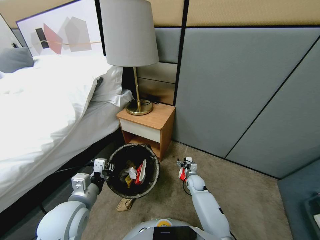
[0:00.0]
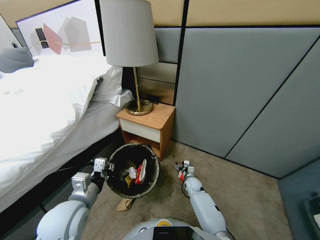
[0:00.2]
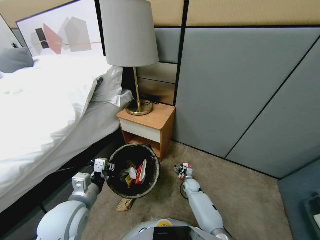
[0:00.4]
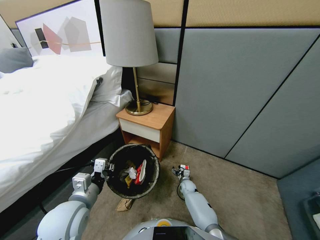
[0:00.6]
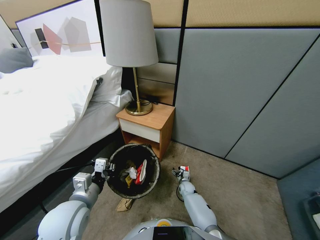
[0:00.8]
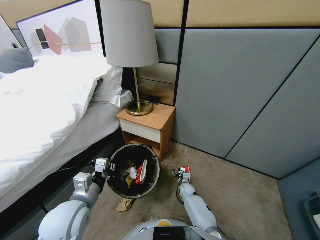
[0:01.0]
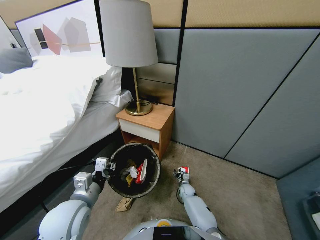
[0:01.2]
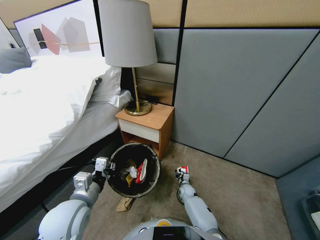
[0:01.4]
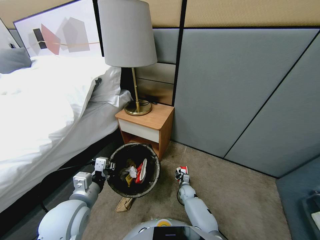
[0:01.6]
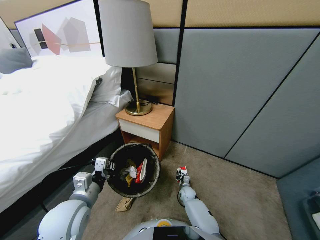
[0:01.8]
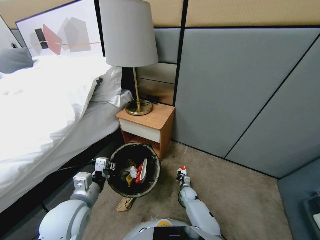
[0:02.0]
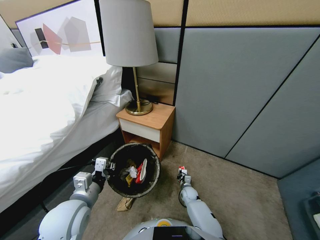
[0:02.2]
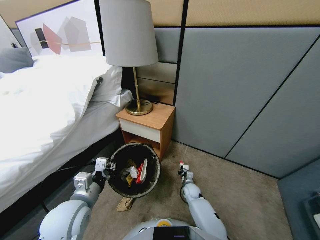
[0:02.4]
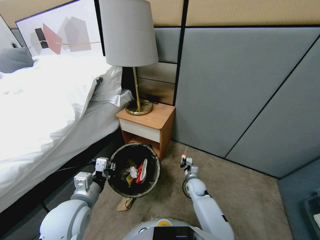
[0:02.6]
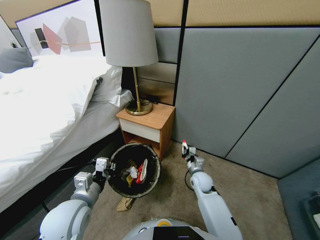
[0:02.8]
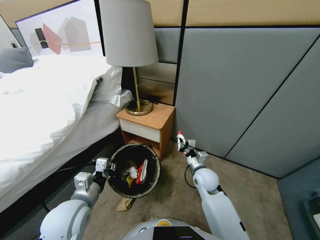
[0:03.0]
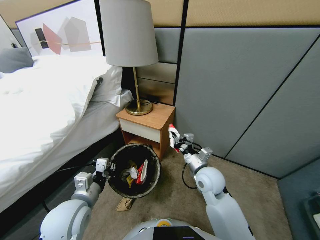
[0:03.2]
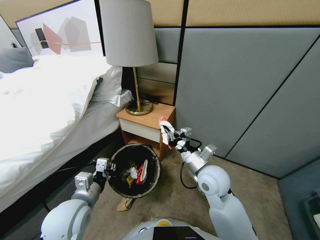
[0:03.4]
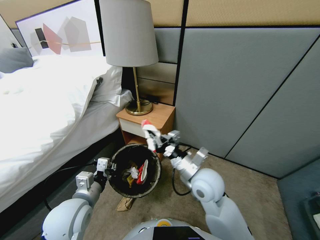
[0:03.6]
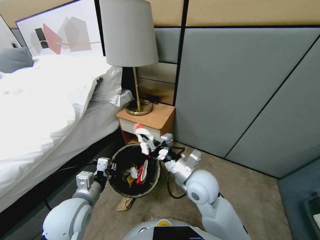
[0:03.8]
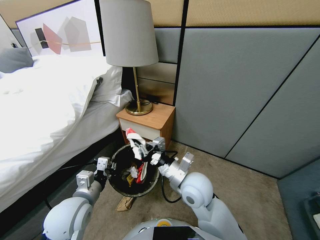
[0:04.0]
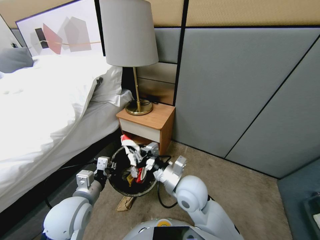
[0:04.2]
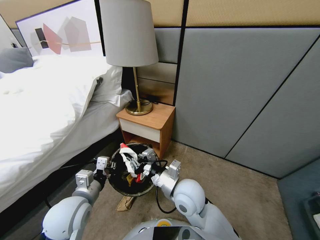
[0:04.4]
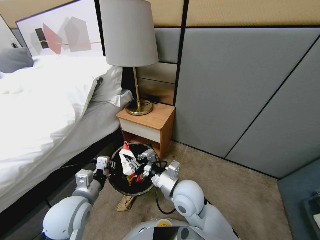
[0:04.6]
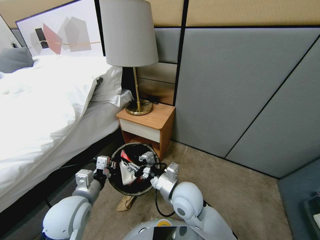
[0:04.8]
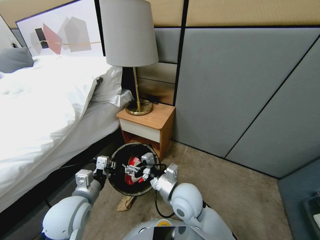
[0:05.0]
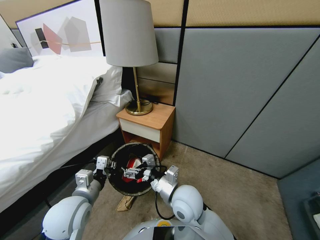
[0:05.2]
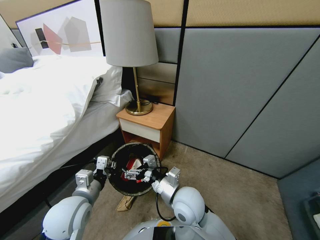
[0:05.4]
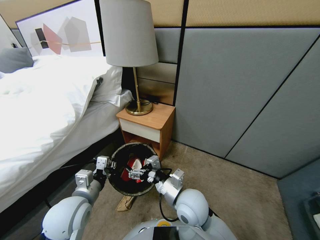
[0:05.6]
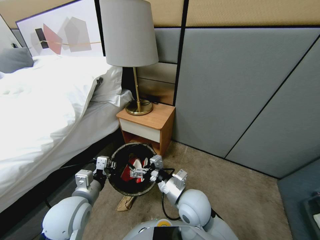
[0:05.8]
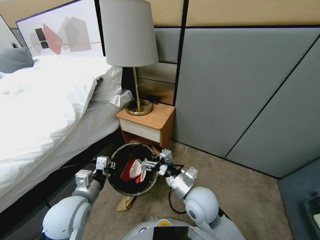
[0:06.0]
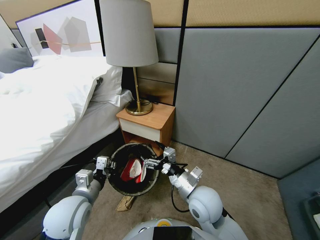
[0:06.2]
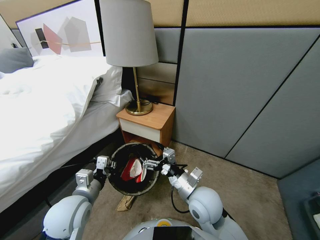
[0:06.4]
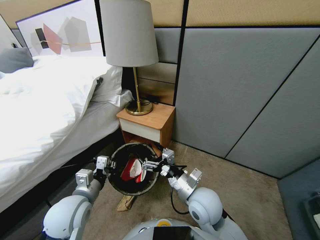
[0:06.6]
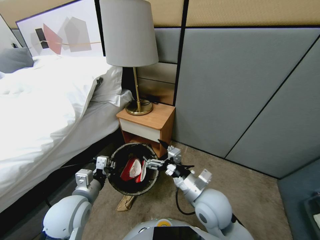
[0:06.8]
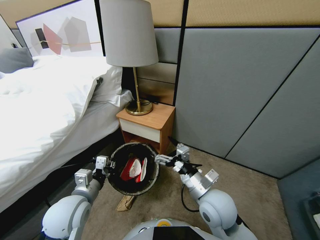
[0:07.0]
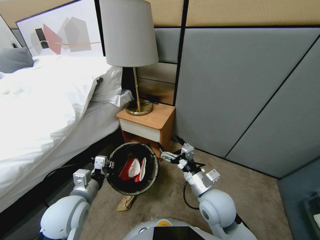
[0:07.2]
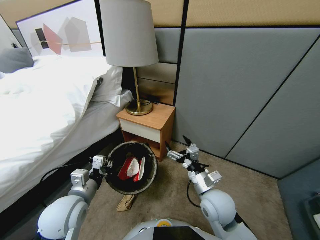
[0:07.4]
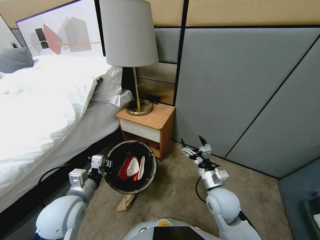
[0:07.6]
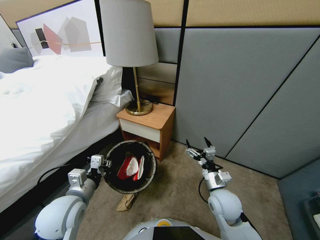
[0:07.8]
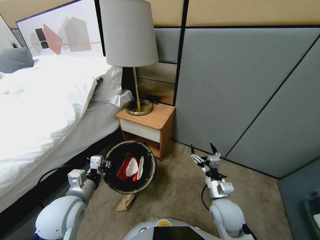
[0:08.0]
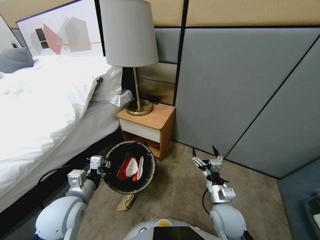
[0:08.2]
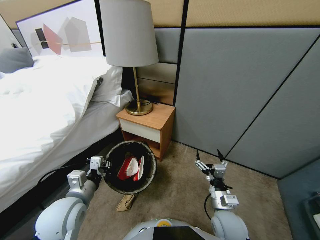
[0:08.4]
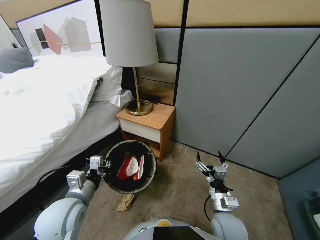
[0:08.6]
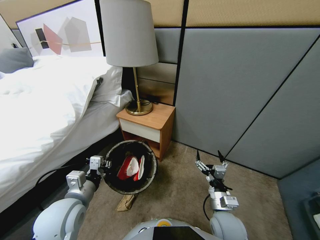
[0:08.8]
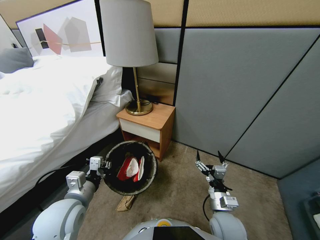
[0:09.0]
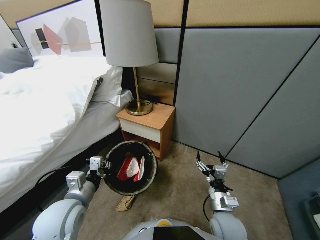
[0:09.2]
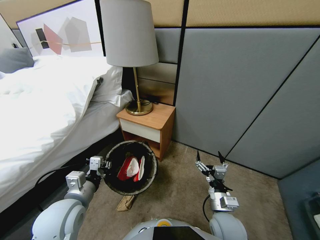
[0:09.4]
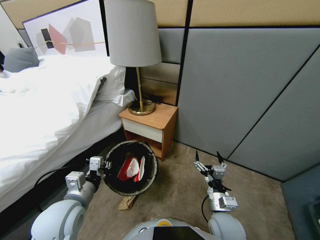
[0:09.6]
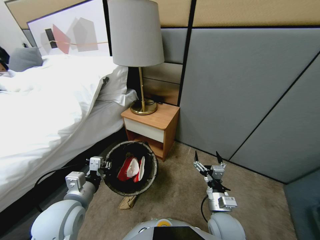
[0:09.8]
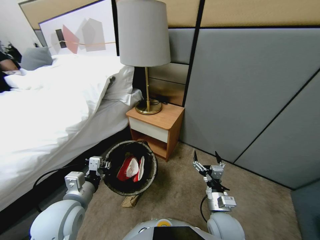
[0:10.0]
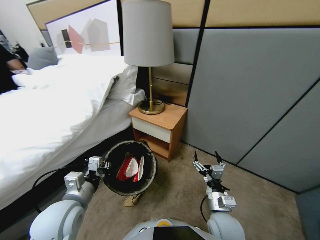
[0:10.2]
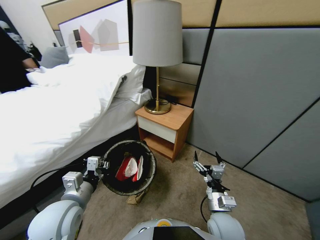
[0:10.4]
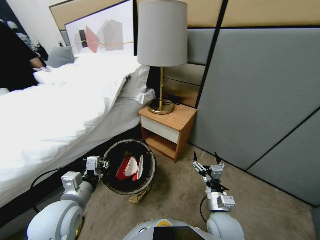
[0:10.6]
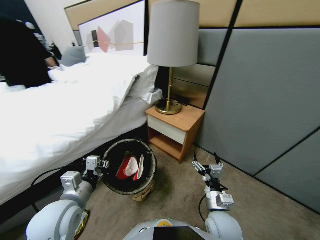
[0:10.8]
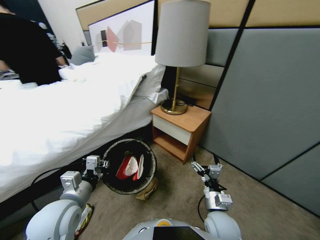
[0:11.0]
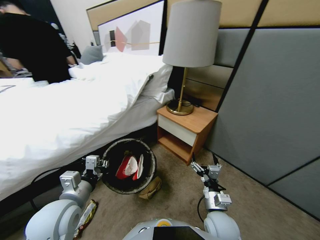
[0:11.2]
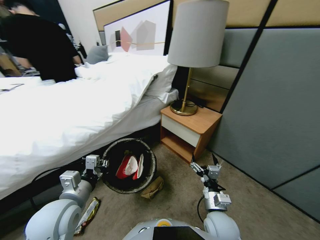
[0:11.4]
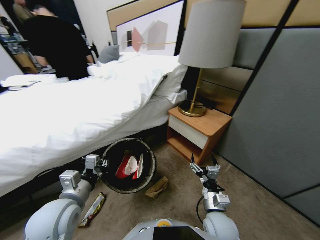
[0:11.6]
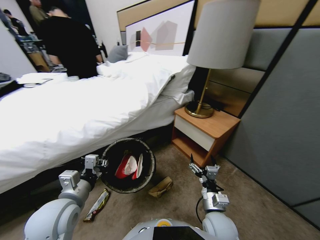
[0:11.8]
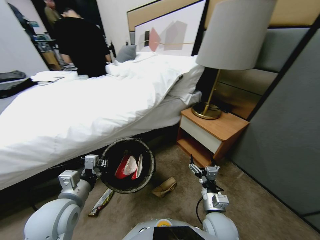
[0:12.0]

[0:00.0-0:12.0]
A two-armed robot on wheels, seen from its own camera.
Task of the whole recording: Pick up the trash bin, then pick up the garbage from the floor and place it into the trash bin.
0:00.0 to 0:01.6: The right gripper shifts approximately 10 cm downward, and closes.
0:01.6 to 0:03.0: The right gripper travels upward by approximately 35 cm, and closes its fingers.
0:03.0 to 0:04.4: The right gripper shifts roughly 10 cm to the left and backward.
0:04.4 to 0:06.0: The right gripper moves roughly 5 cm, and opens up.
0:06.0 to 0:07.6: The right gripper shifts about 10 cm to the right and downward.
0:07.6 to 0:09.0: The right gripper is displaced backward by some 5 cm.

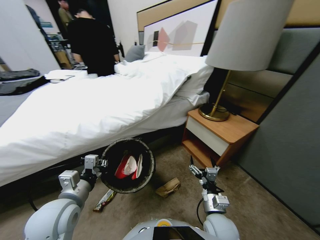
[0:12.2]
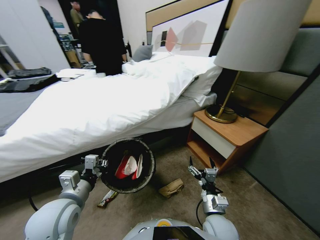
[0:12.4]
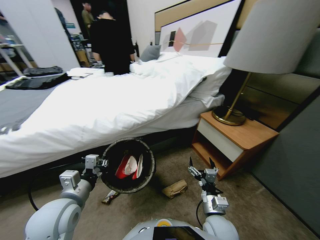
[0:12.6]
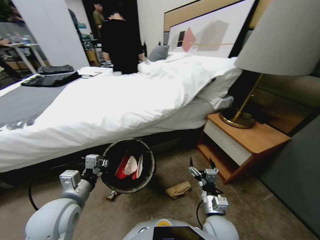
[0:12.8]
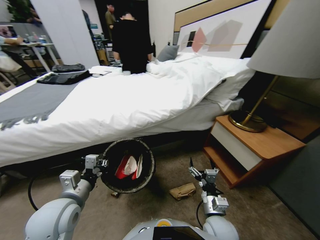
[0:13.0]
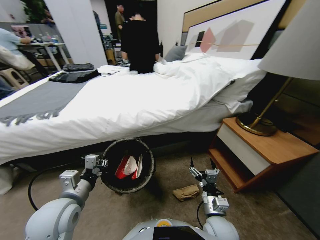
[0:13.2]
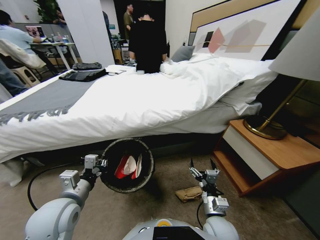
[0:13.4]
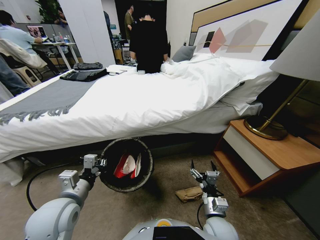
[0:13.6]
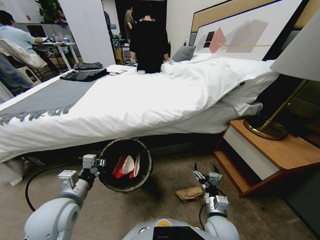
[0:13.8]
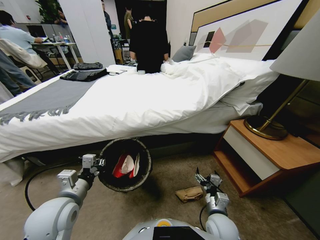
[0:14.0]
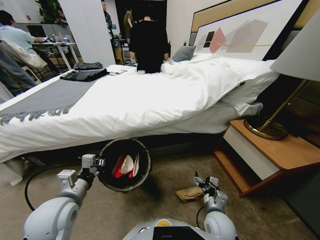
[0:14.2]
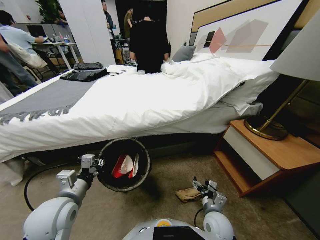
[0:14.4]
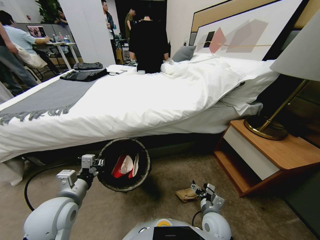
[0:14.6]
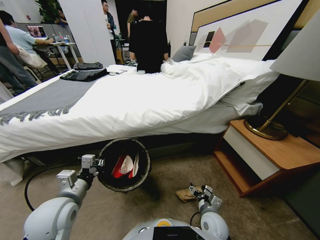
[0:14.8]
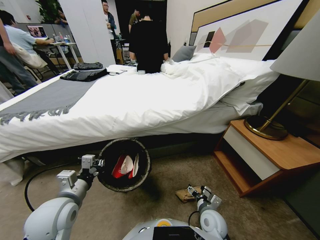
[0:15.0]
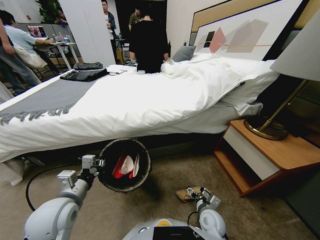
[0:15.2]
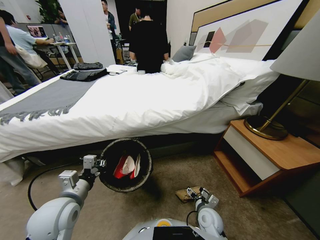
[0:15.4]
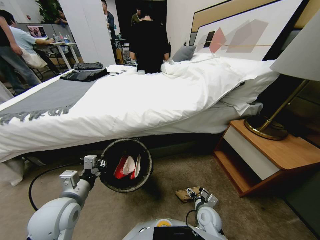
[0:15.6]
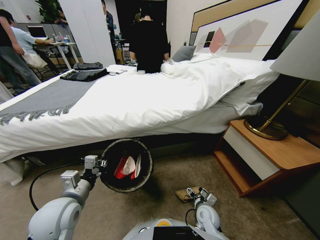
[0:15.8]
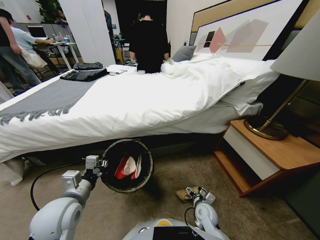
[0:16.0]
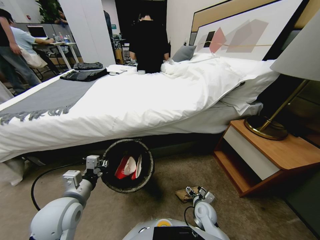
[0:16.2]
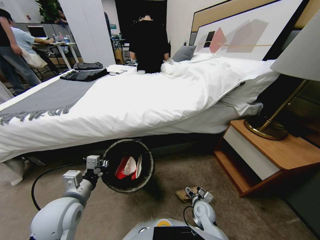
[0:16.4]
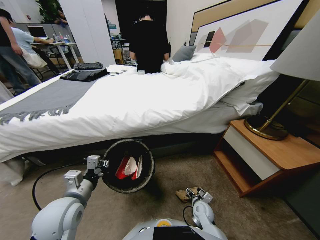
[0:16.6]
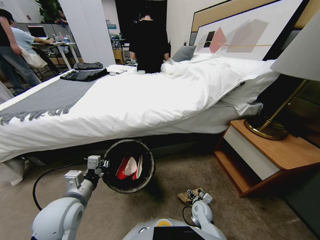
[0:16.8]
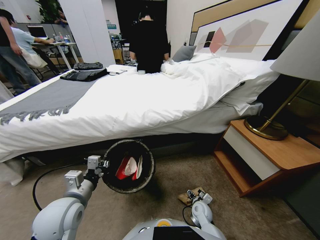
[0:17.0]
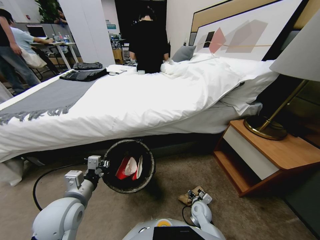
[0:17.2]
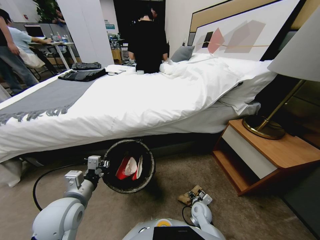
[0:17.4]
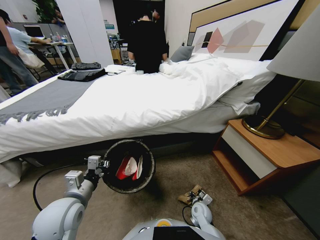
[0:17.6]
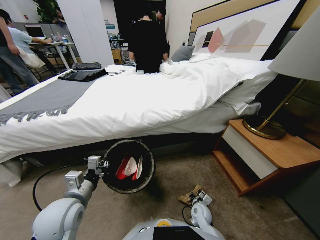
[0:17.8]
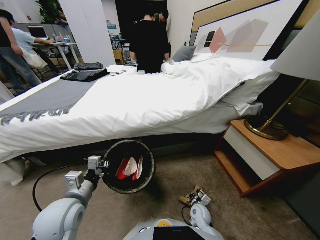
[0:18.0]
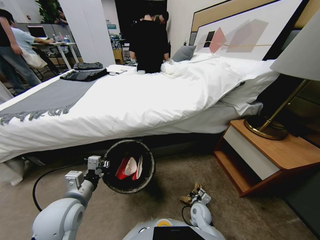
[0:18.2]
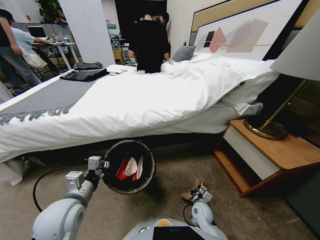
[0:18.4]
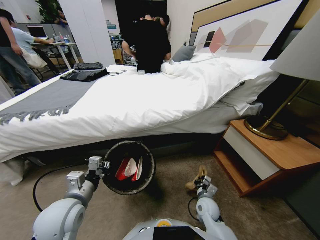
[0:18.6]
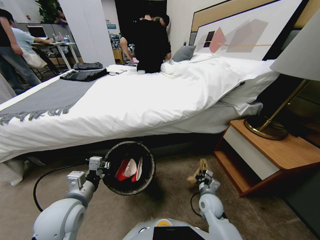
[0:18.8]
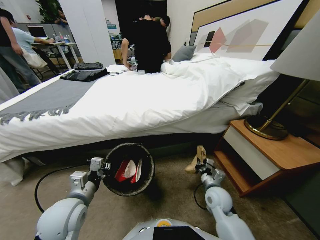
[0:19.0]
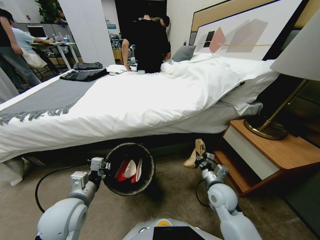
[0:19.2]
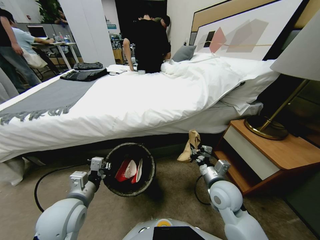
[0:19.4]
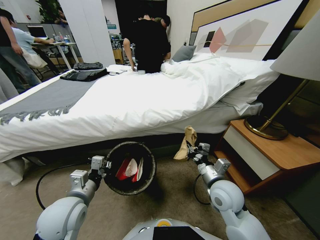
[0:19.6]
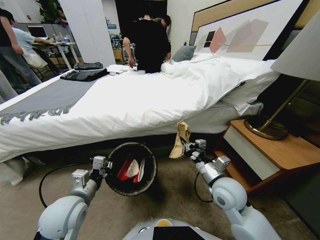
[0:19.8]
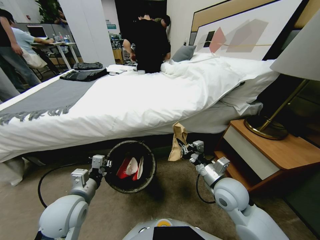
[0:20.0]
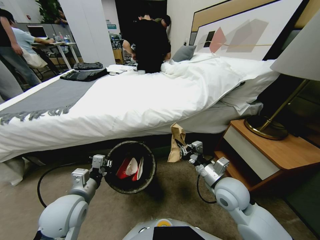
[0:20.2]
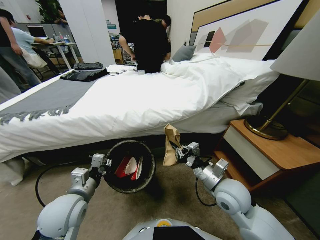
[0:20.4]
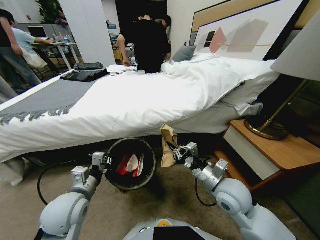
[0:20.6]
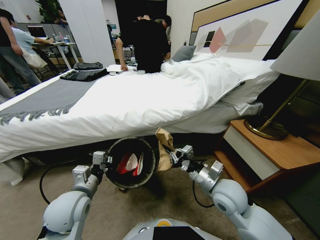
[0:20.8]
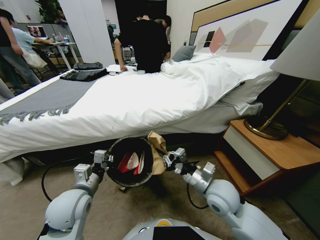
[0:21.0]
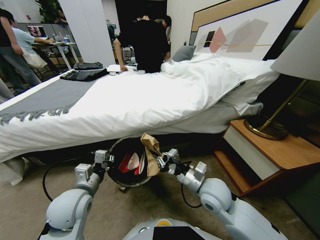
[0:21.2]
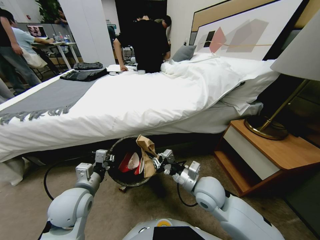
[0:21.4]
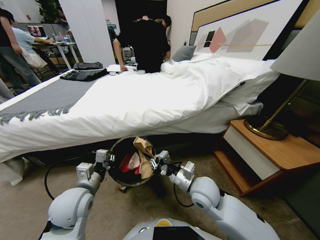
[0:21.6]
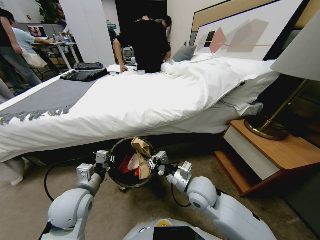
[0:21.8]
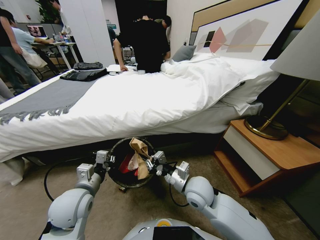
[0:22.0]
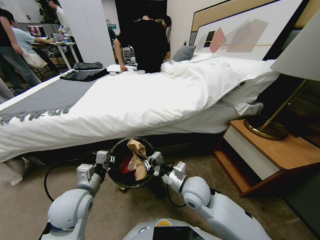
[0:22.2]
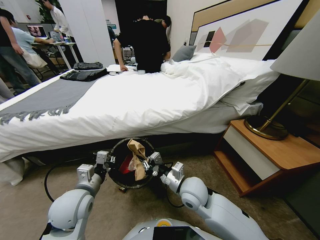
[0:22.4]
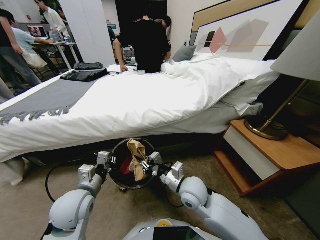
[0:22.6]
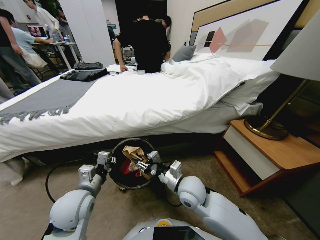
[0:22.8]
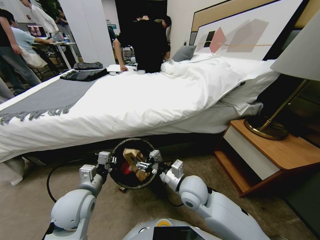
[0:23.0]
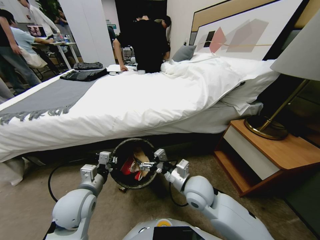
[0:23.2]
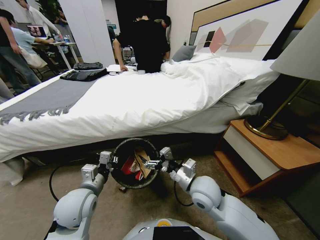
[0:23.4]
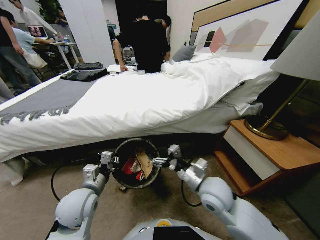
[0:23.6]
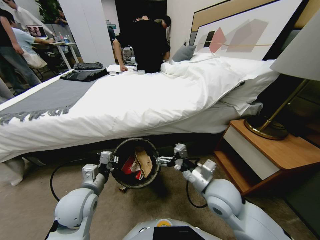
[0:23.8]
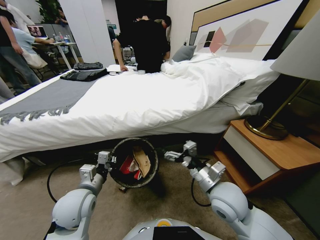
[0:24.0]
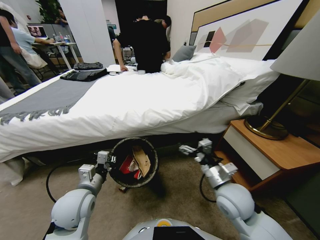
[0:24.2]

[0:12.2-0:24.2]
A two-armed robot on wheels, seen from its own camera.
Task of the whole recording: Pick up the trash bin, then pick up the garbage from the floor and place it into the trash bin.
0:13.8 to 0:15.2: The right gripper heads downward, covering about 10 cm.
0:15.2 to 0:16.6: The right gripper travels downward by roughly 10 cm.
0:16.6 to 0:18.2: The right gripper closes.
0:18.2 to 0:19.8: The right gripper travels upward by roughly 25 cm.
0:19.8 to 0:21.2: The right gripper heads to the left, covering about 5 cm.
0:21.2 to 0:22.6: The right gripper goes approximately 5 cm to the left, and opens.
0:22.6 to 0:24.2: The right gripper goes about 15 cm to the right, and opens its fingers.
